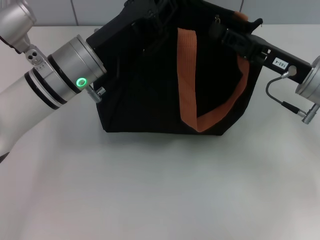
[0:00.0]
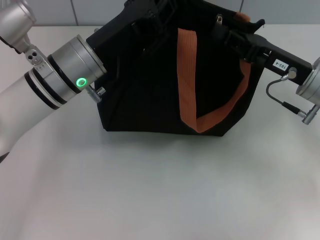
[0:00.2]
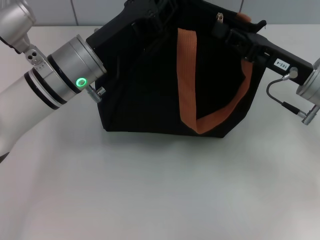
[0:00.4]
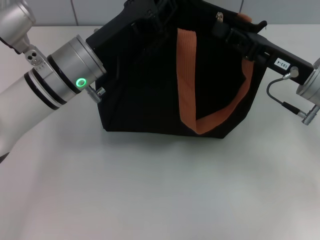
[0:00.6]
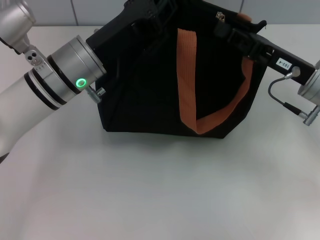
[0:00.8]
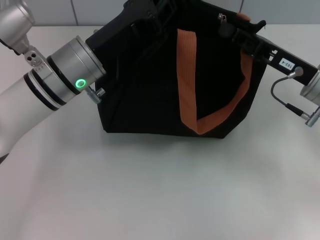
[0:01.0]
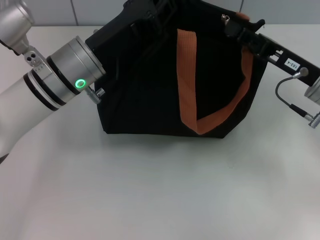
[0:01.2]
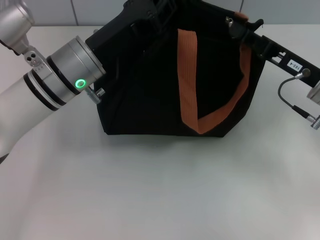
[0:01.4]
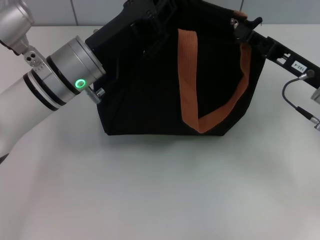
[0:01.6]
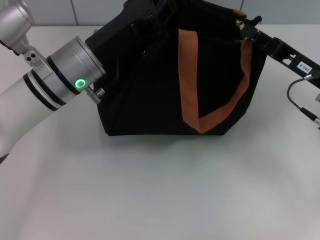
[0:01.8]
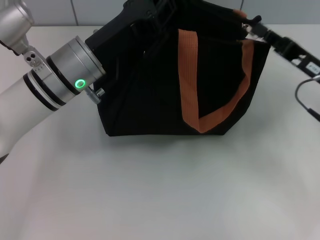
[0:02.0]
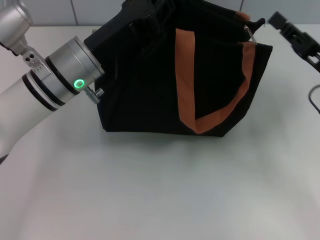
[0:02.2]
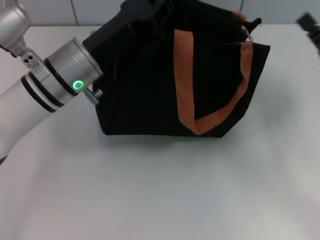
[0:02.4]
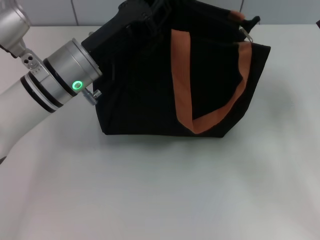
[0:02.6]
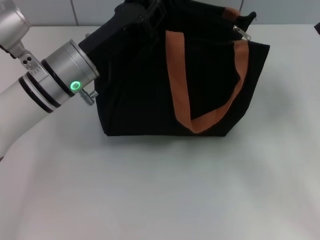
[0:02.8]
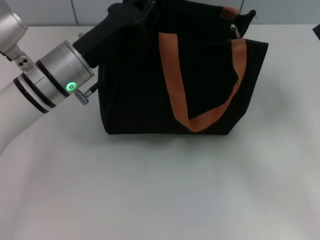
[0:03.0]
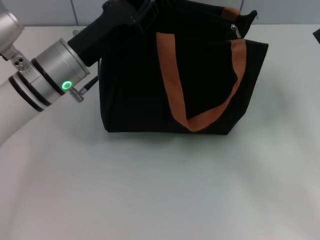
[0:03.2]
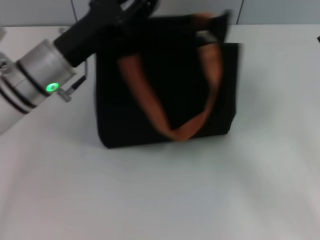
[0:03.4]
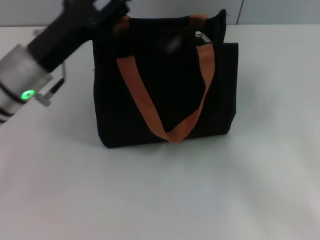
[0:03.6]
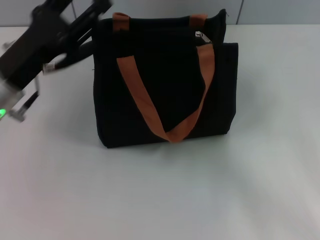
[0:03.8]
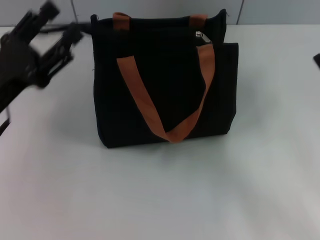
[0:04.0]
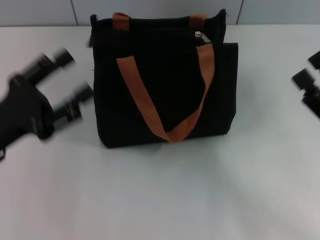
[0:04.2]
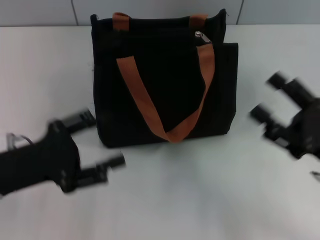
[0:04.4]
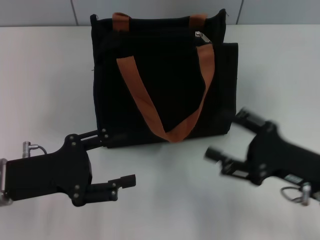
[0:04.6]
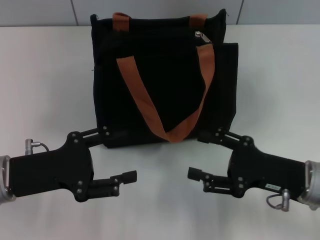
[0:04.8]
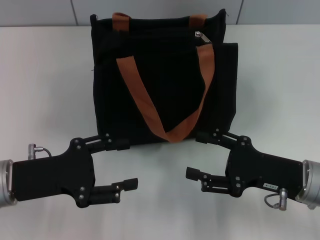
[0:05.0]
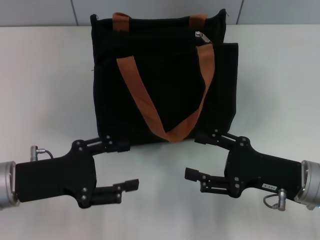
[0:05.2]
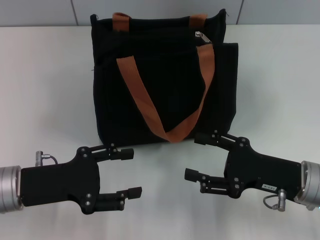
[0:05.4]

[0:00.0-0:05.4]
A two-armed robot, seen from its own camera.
Step, 0:00.0 to 0:02.6: Pull up the zipper with your right hand.
Step, 0:02.8 to 0:03.8: Grab the zipper with your left hand.
0:00.0 to 0:01.4: The grippers stay close to where they were, moving slightly.
0:01.4 to 0:02.8: The right gripper travels backward and to the right by some 10 cm, and opens.
0:02.8 to 0:04.0: The left gripper goes approximately 15 cm to the left and backward, and opens up. Meanwhile the right gripper opens its fingers.
0:04.0 to 0:05.4: The right gripper heads to the left, covering about 5 cm. Meanwhile the left gripper shifts by approximately 5 cm.
